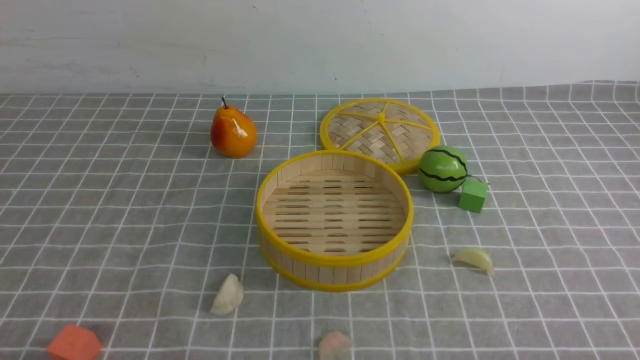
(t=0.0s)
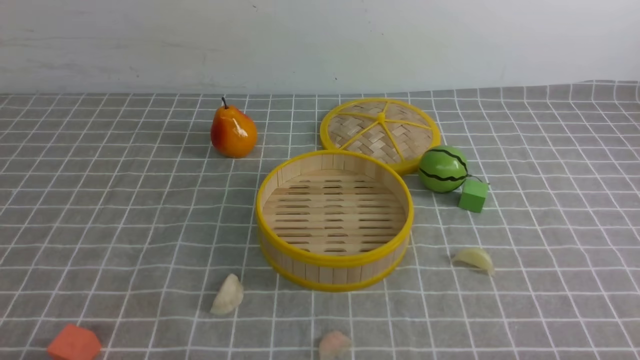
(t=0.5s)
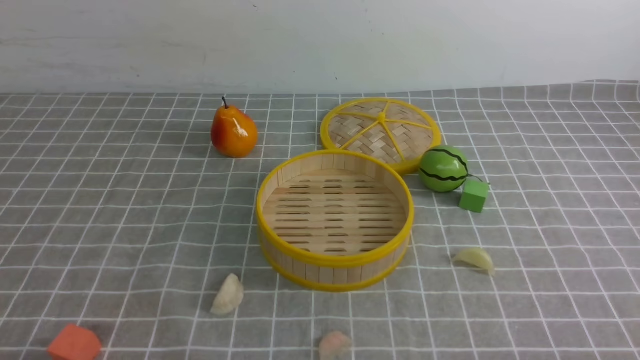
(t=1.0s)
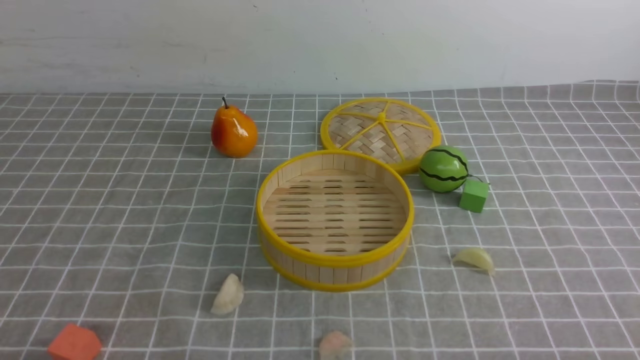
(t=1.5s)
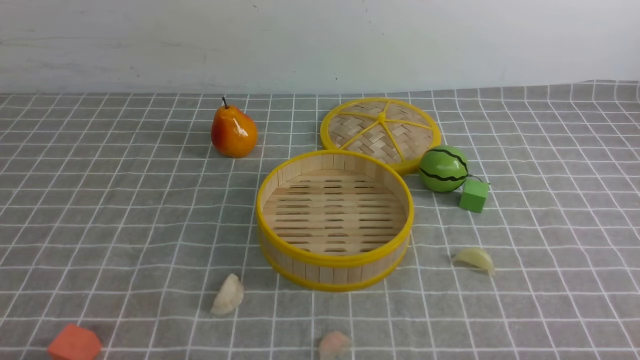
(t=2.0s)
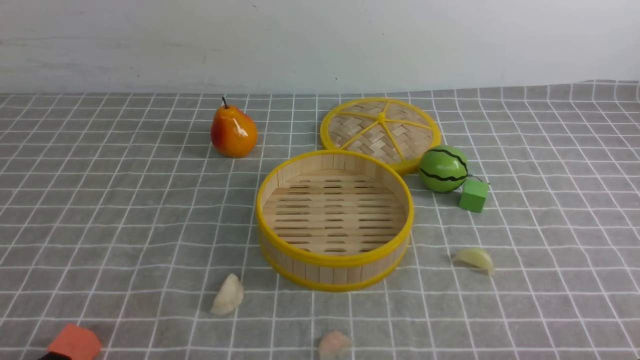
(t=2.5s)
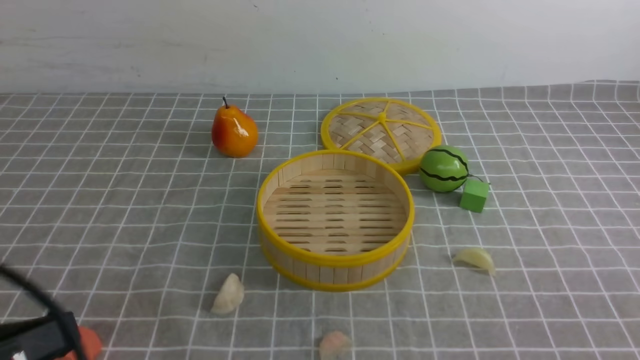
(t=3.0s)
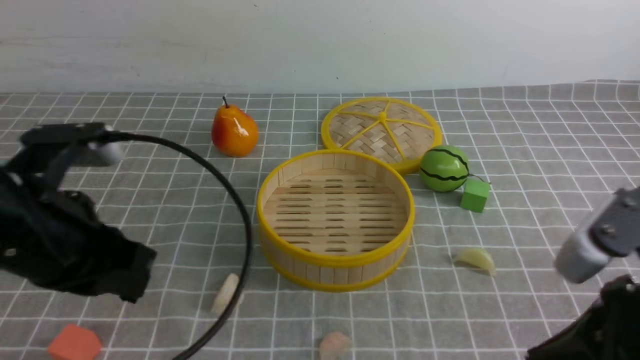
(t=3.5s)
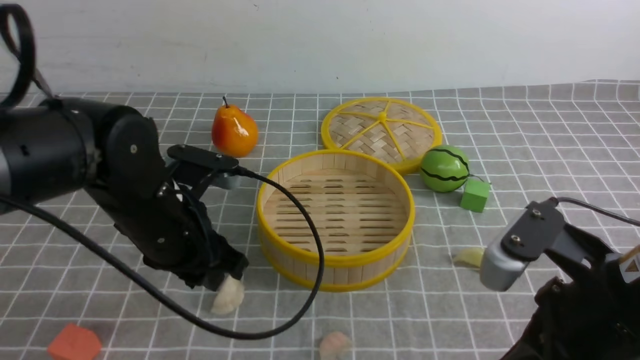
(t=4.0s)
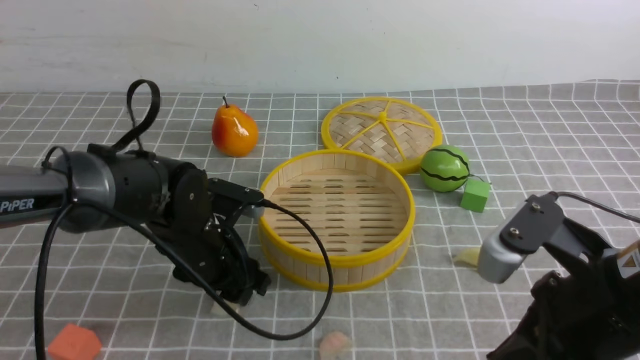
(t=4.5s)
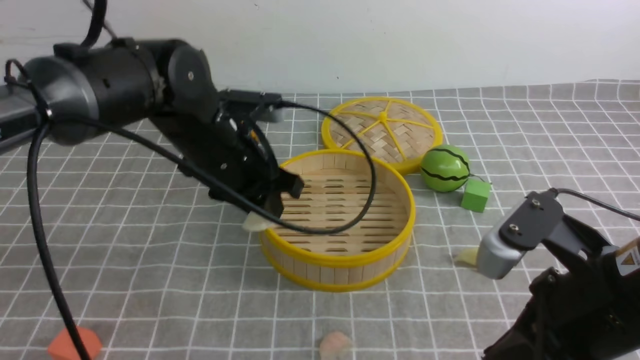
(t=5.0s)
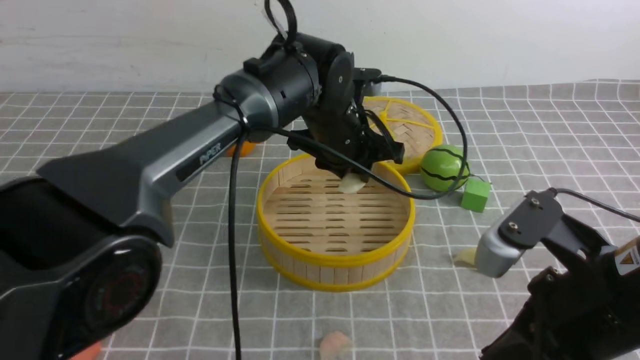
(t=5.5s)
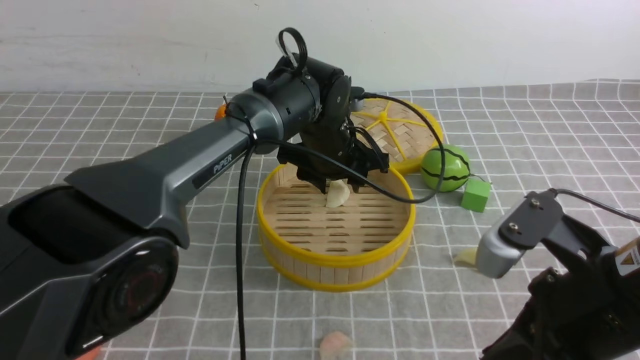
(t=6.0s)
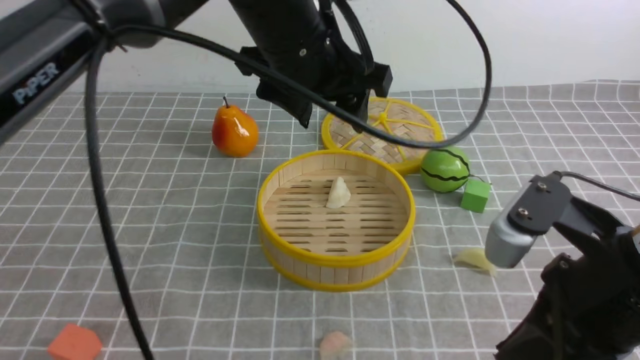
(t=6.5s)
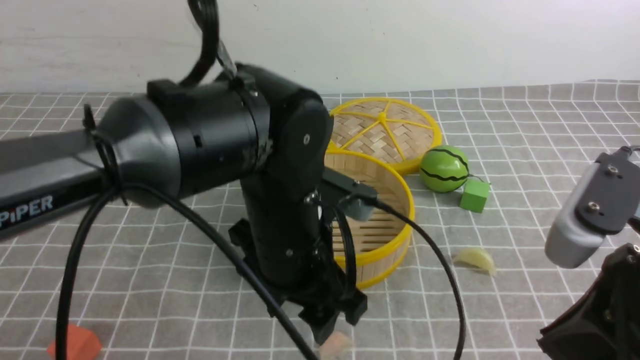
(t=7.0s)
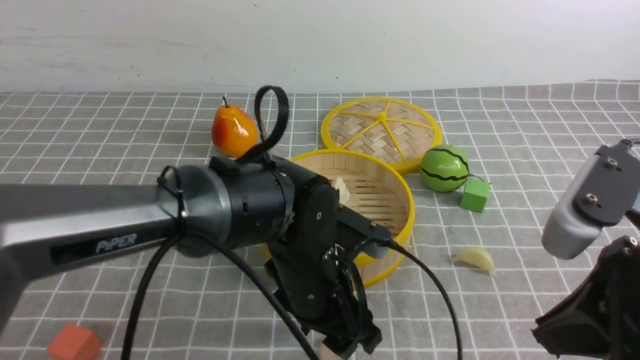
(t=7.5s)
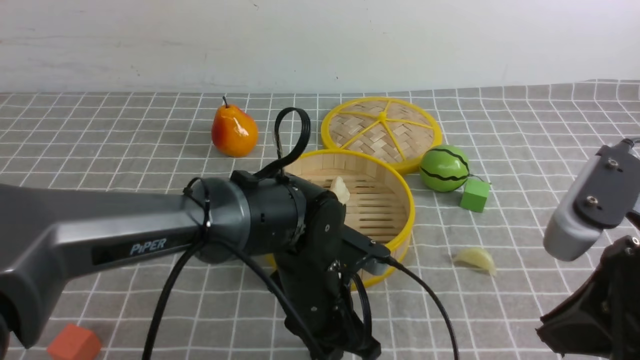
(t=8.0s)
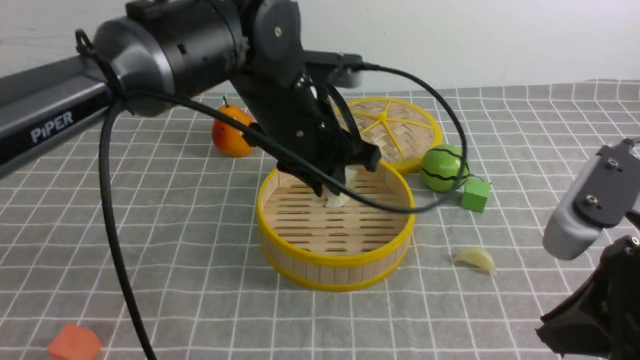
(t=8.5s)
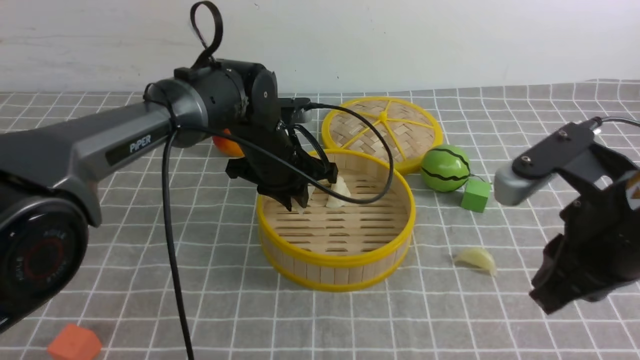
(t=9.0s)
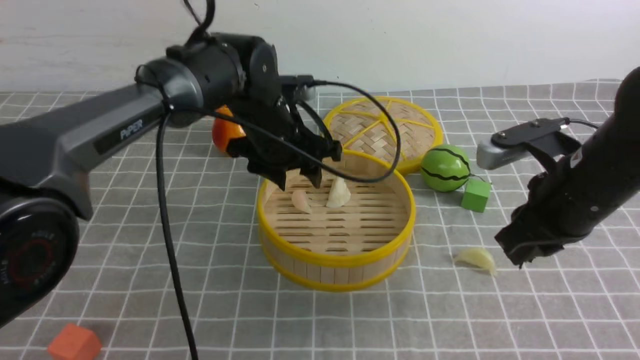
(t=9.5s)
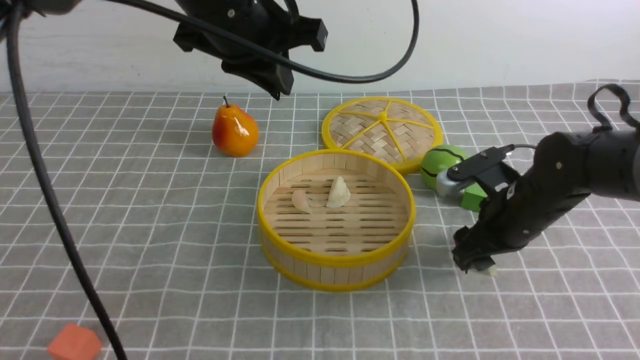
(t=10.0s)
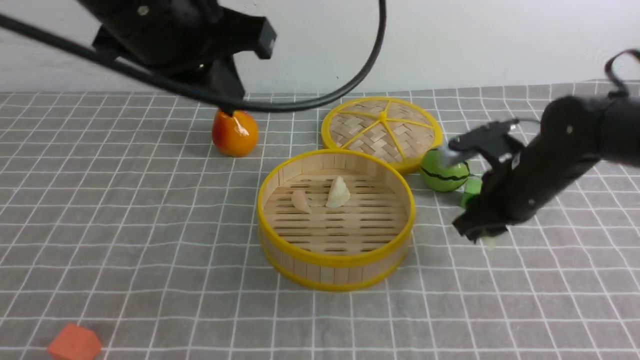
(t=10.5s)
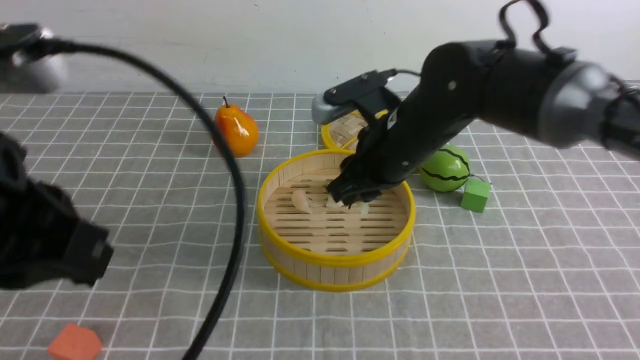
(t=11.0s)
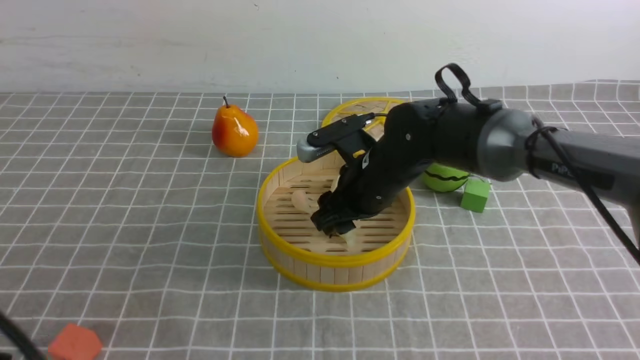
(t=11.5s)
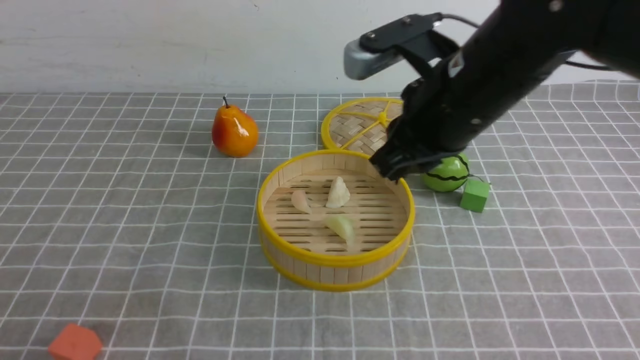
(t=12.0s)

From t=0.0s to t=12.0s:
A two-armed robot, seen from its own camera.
Task of the whole recording: put the dumplings into the steamer on the table with the grey tablecloth.
Step, from t=0.0s to t=4.5s: use the left arm to grab a dumpling.
Step, from t=5.0s to t=6.0s: use the left arm to put the dumpling into the steamer.
Step, from t=6.5s to t=8.0s: use the left arm to grab a dumpling.
Step, from t=8.5s to t=9.5s: use the left arm to put the dumpling into the steamer.
Step, from t=10.5s to t=11.5s: use the right arm to put the dumpling into the steamer.
From t=2.0s to t=4.0s: The left gripper goes approximately 25 cm forward and to the right, while the right gripper moves forward, to the left and upward, approximately 20 cm, and closes up.
From t=4.0s to t=6.0s: The left gripper is displaced forward and to the right by roughly 25 cm, and opens up.
From t=6.0s to t=8.0s: The left gripper goes approximately 15 cm backward, and goes upward and returns, some 15 cm each way; the right gripper shifts by some 5 cm.
From t=8.0s to t=10.0s: The right gripper travels forward and downward by roughly 25 cm, and opens up, while the left gripper goes up and down, about 20 cm each way, reversing 2 times, and opens and closes again.
From t=10.0s to t=12.0s: The left gripper heads backward and to the left, covering some 40 cm, while the right gripper goes roughly 20 cm upward and to the left, and closes up.

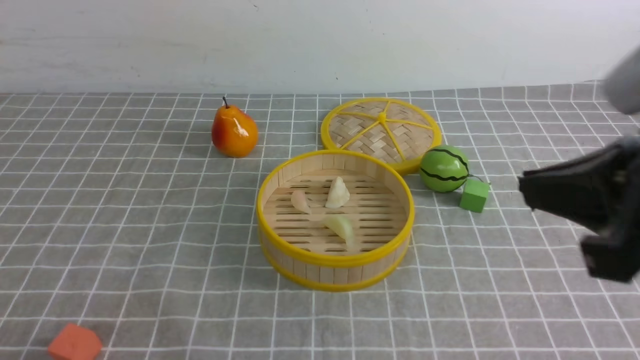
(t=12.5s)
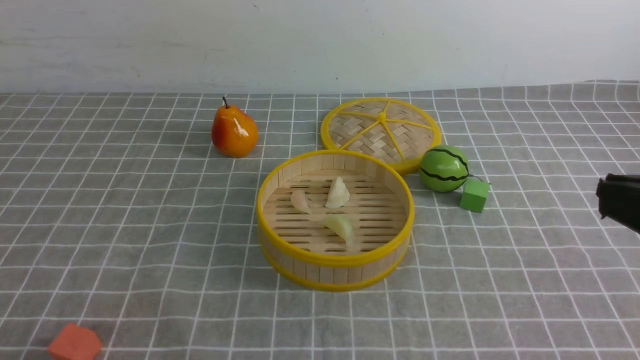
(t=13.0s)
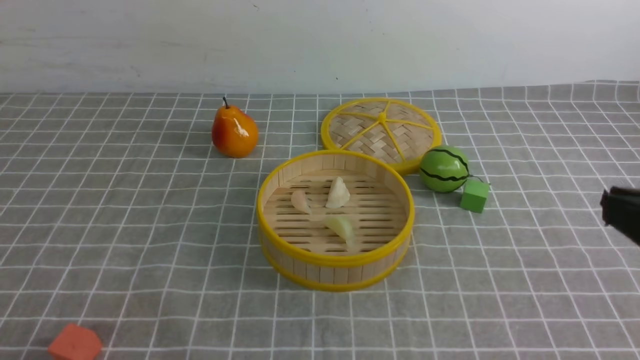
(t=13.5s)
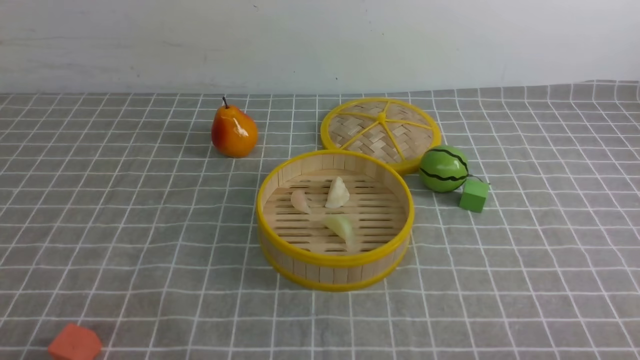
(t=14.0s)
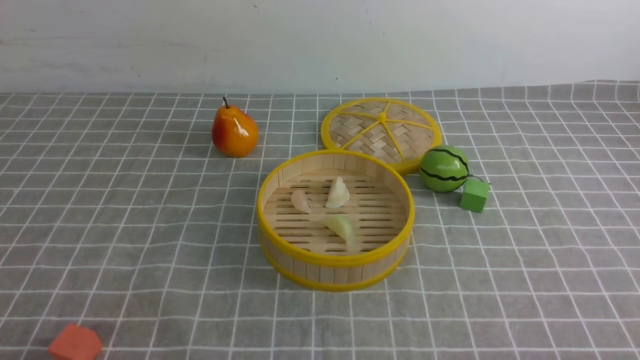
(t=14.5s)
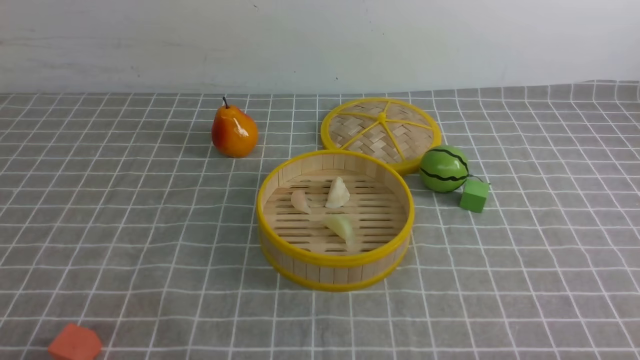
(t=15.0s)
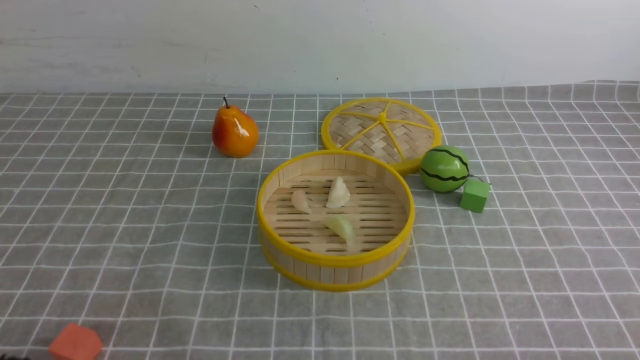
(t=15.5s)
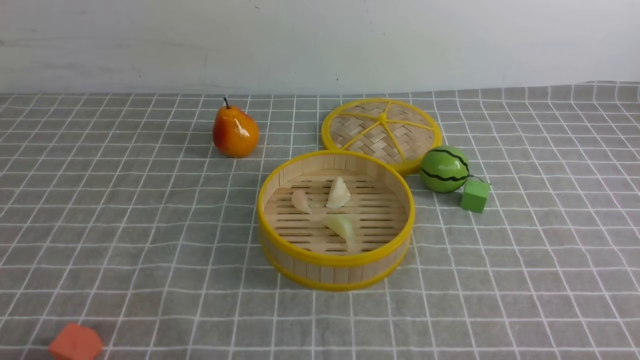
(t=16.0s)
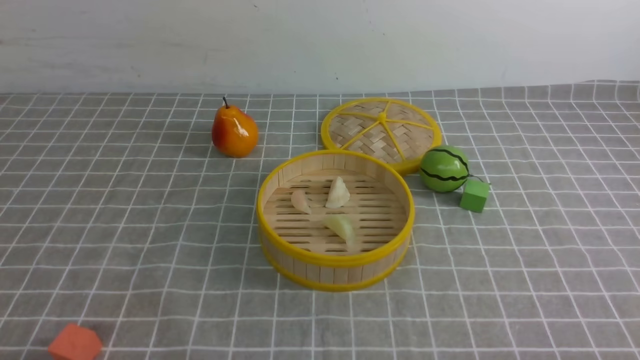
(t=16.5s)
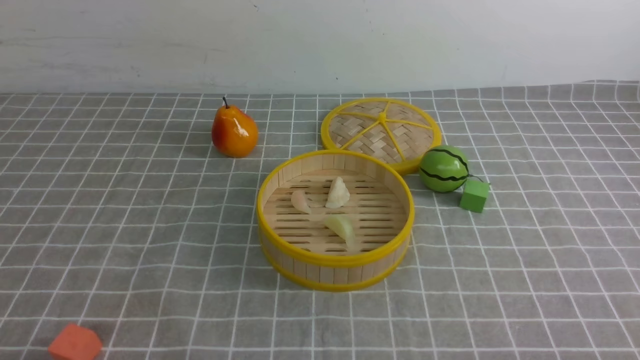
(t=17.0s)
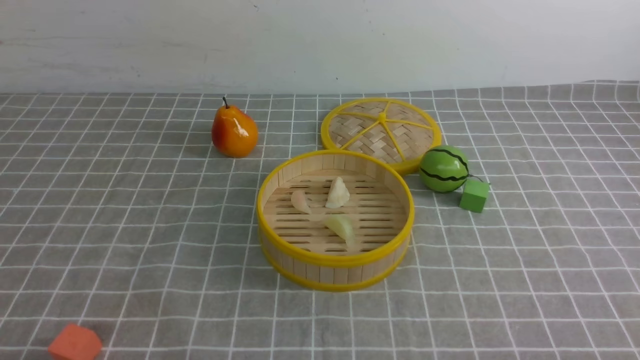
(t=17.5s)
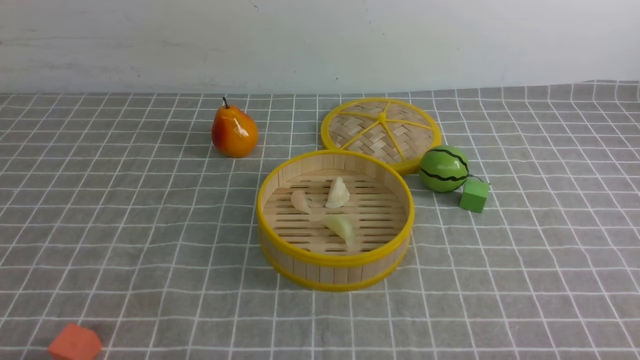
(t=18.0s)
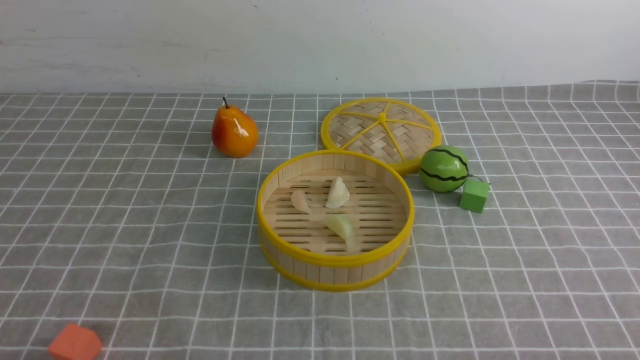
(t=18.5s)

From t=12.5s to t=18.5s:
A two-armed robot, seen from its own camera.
Task of the whole recording: put the dumplings into the steamer on the table with the grey tablecloth.
From t=12.5s to t=14.5s: The right gripper heads downward, backward and to the right, covering about 30 cm.
From t=16.5s to t=18.5s: Both grippers stay put.
